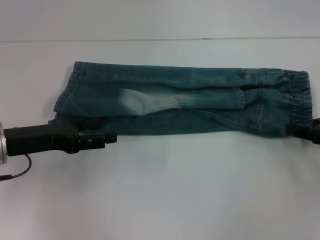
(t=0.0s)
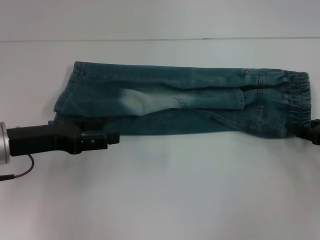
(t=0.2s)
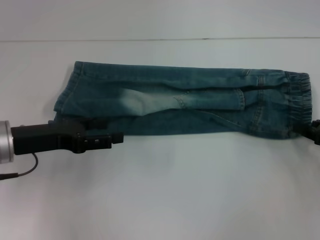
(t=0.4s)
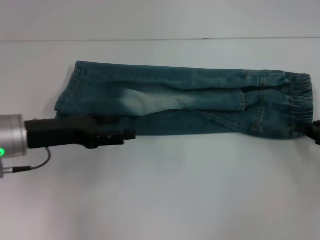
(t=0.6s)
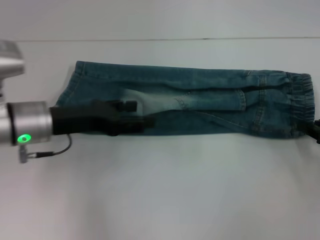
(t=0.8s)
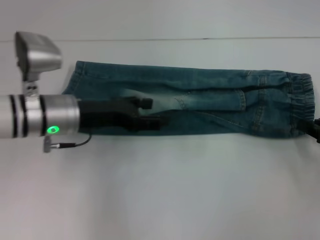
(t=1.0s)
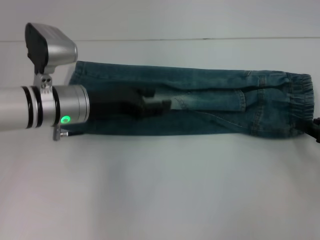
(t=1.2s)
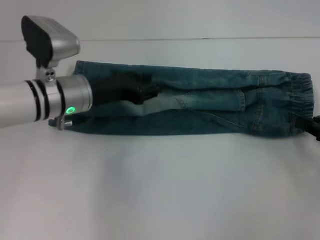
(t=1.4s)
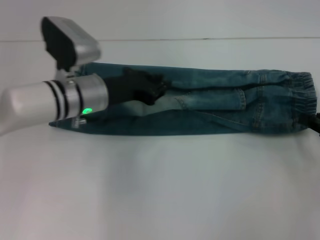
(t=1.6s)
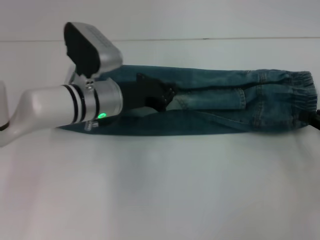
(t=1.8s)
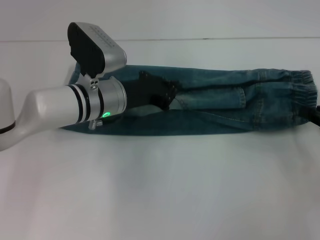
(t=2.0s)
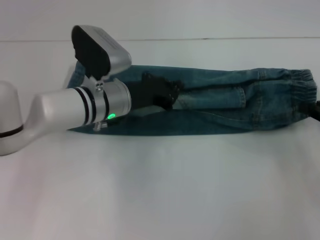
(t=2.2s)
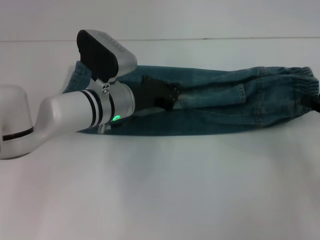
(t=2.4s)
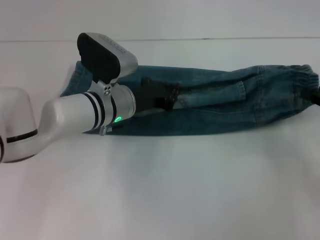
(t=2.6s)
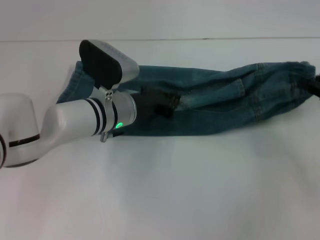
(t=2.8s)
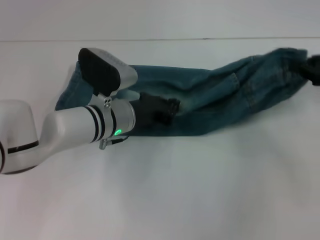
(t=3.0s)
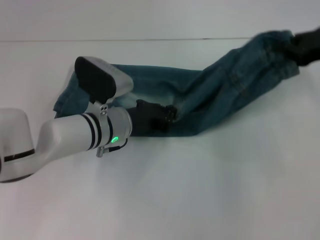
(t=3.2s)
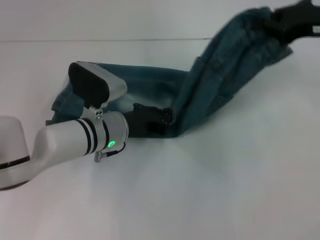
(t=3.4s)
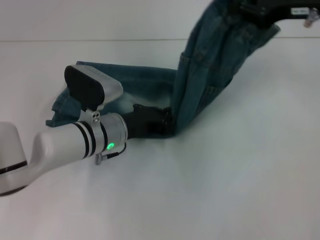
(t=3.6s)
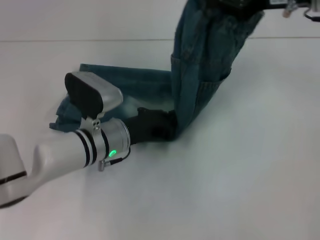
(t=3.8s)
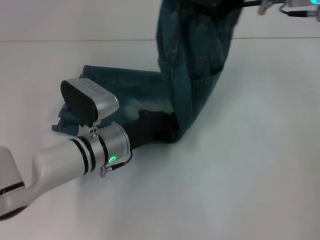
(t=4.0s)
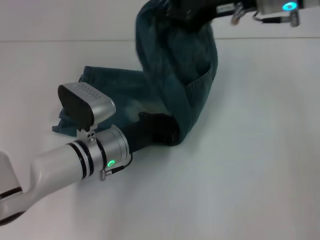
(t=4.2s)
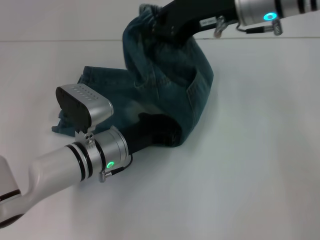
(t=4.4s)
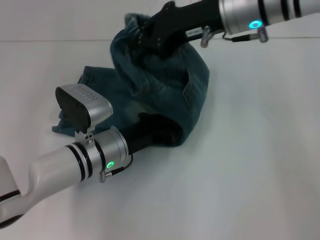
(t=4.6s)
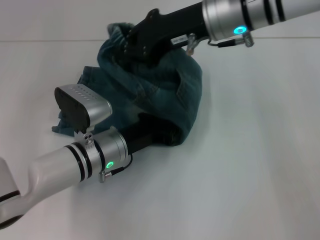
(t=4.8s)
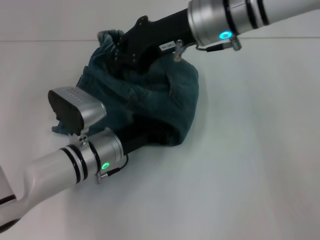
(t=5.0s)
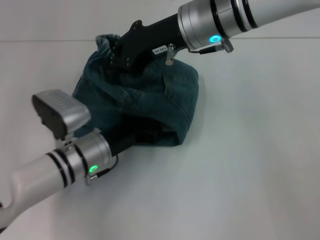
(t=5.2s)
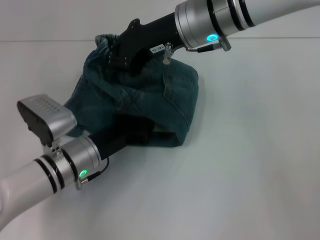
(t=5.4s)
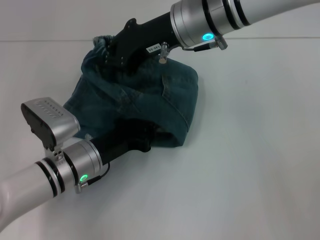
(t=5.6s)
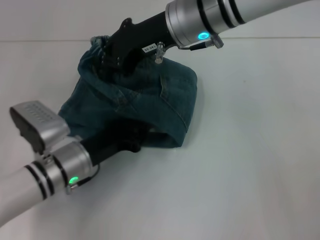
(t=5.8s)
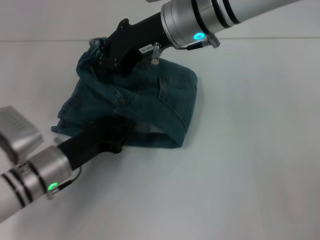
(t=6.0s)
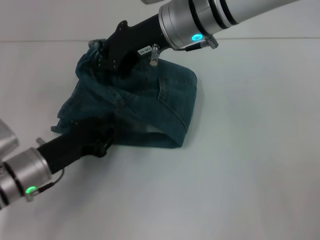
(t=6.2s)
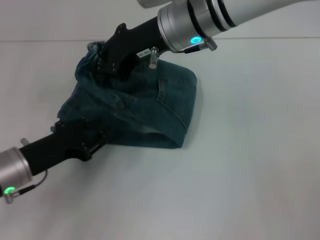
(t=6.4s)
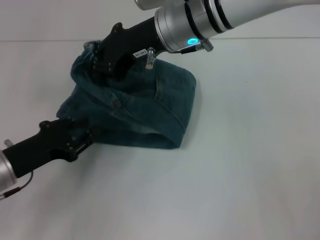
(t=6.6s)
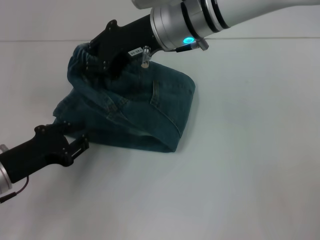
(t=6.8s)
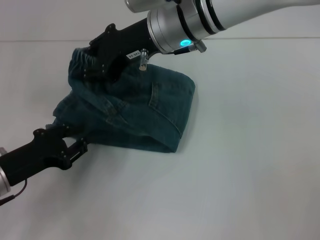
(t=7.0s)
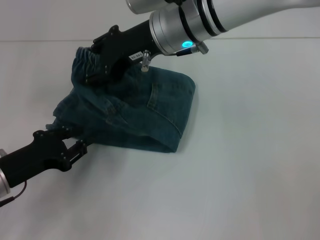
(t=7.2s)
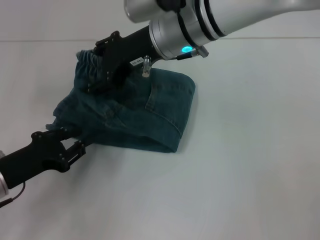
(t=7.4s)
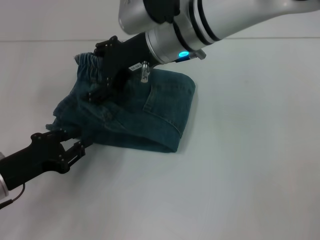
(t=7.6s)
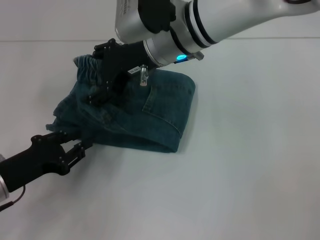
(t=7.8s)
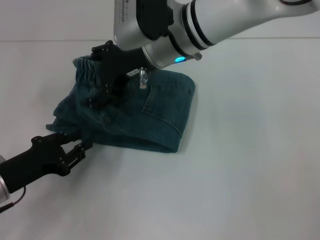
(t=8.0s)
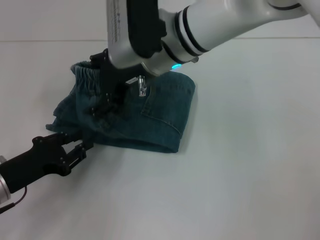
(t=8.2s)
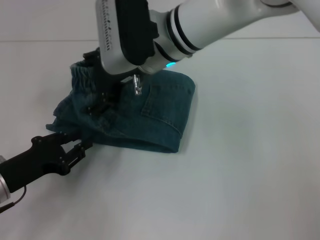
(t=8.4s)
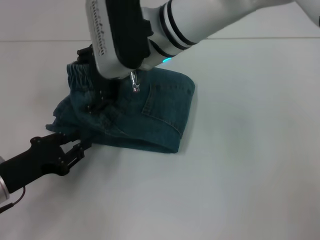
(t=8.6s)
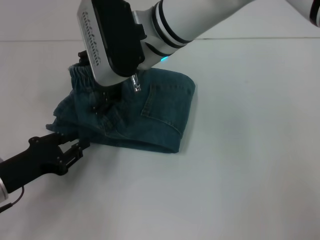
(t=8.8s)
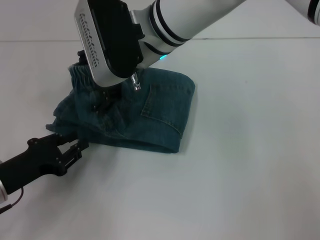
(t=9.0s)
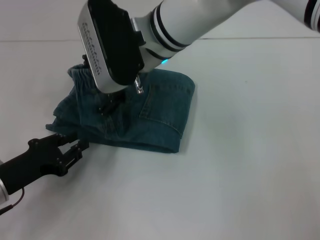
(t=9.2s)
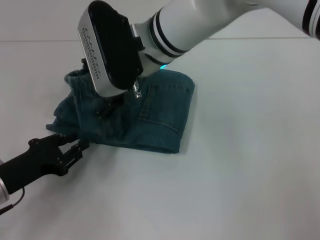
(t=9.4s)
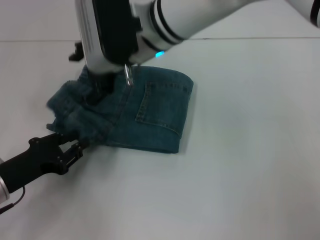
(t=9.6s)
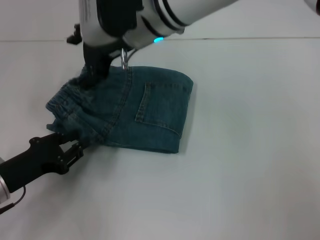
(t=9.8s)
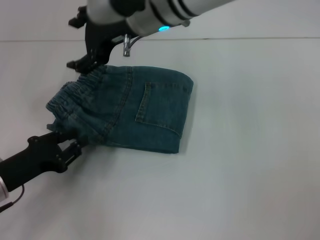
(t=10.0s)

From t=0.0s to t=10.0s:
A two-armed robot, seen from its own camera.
Step, from t=0.8s to t=4.8s: Press the middle of the pants with your left hand.
Step, from t=5.0s to t=9.6s: Fold to the left with your right hand.
From t=0.0s to t=1.4s: The right gripper closes. The left gripper shifts some 15 cm to the right and forward.
From t=1.4s to t=2.8s: The left gripper moves to the right, approximately 5 cm, and closes. The right gripper goes roughly 5 cm upward.
From t=2.8s to t=4.2s: The right gripper shifts approximately 25 cm to the left and upward. The left gripper shifts roughly 5 cm backward.
From t=4.2s to t=5.8s: The right gripper shifts some 10 cm to the left, while the left gripper moves to the left, roughly 5 cm.
From t=5.8s to t=7.2s: The right gripper opens up. The left gripper travels to the left by about 10 cm.
From t=7.2s to t=8.6s: The right gripper opens up.
From t=8.6s to t=10.0s: The grippers move only a little.

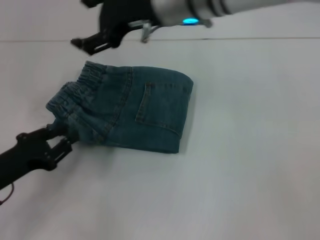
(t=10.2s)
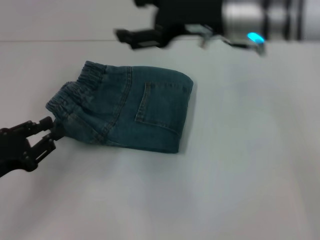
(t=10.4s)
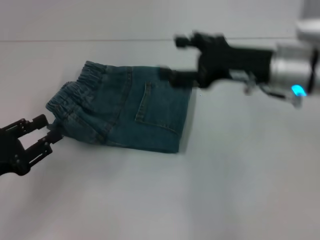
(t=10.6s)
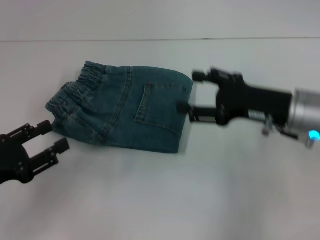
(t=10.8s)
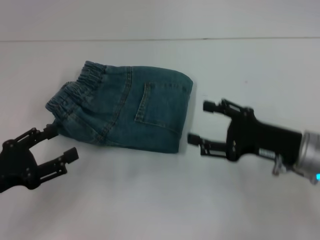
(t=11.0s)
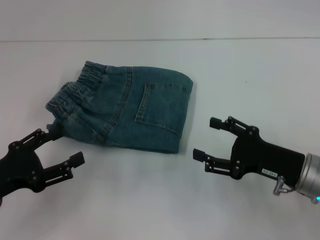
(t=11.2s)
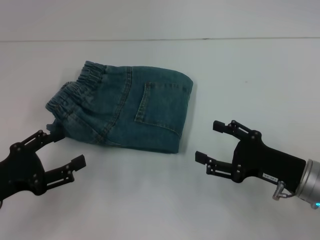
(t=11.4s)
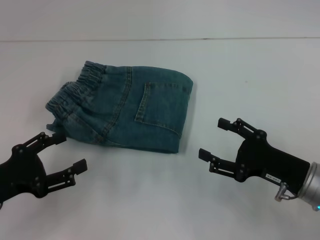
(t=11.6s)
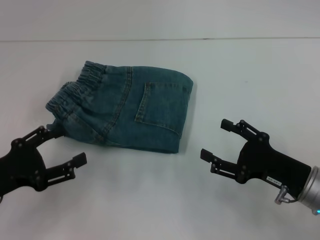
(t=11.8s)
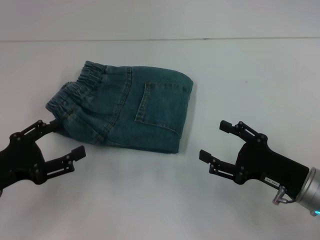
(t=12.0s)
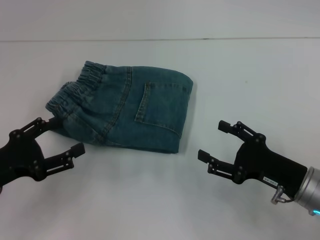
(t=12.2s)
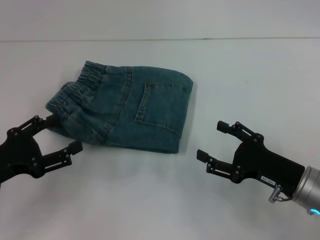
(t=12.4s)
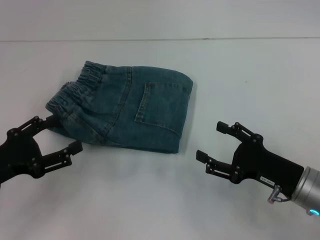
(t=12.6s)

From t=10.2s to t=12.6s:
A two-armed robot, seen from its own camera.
From t=10.2s to t=11.4s: The left gripper opens up. The right gripper goes about 30 cm downward, to the right and backward.
From t=11.4s to t=12.6s: There are only small adjustments of the grippers.
